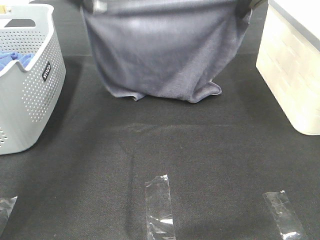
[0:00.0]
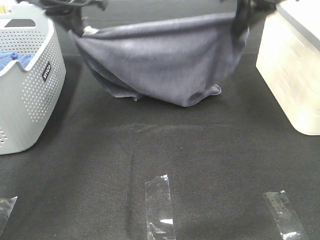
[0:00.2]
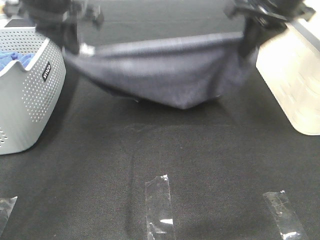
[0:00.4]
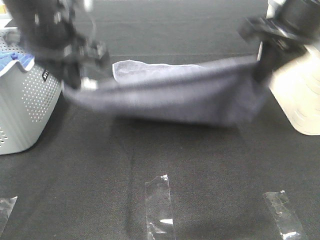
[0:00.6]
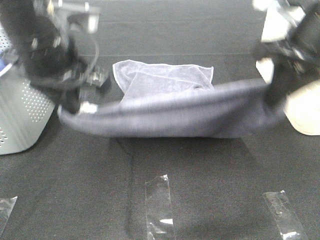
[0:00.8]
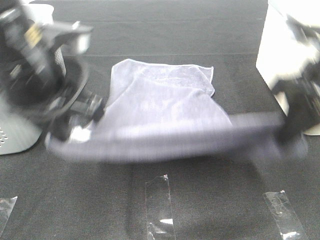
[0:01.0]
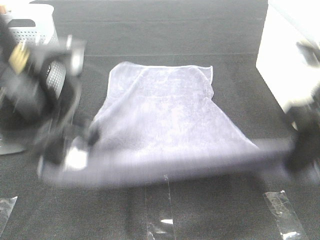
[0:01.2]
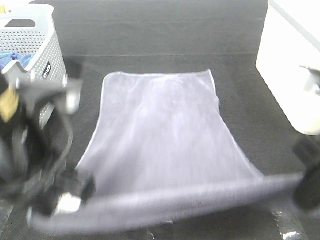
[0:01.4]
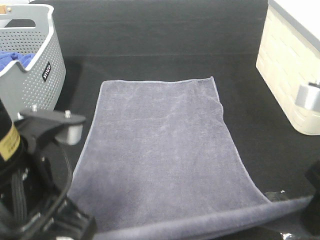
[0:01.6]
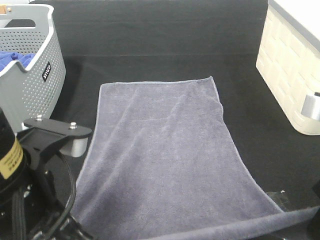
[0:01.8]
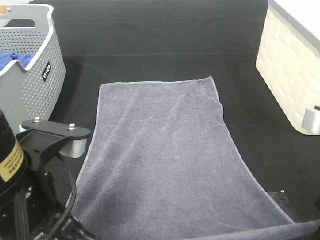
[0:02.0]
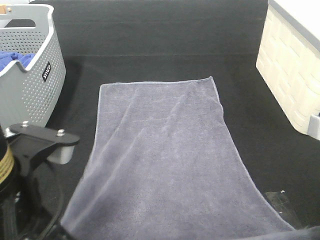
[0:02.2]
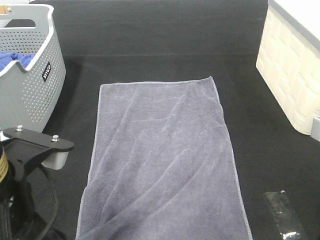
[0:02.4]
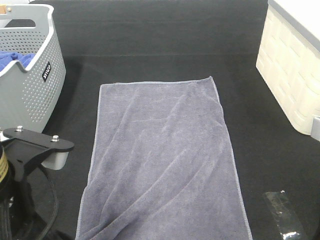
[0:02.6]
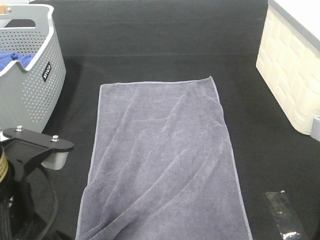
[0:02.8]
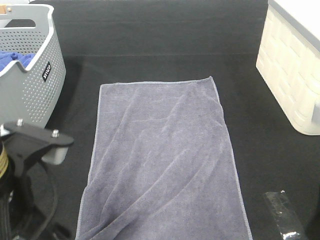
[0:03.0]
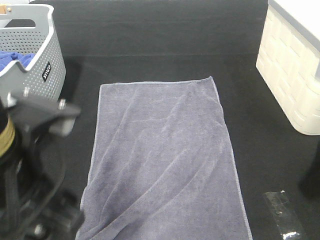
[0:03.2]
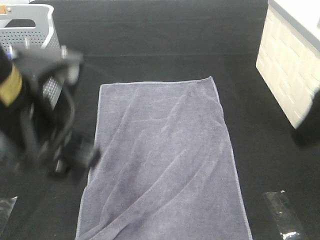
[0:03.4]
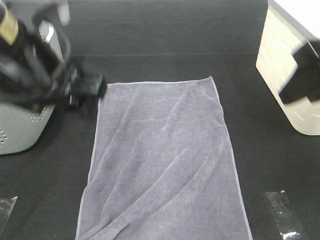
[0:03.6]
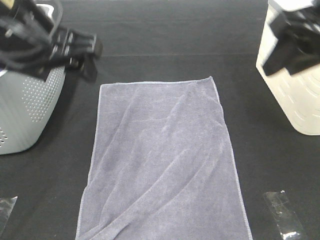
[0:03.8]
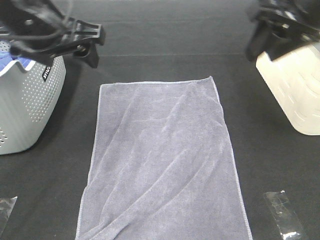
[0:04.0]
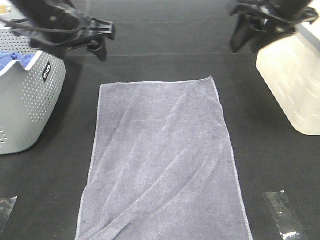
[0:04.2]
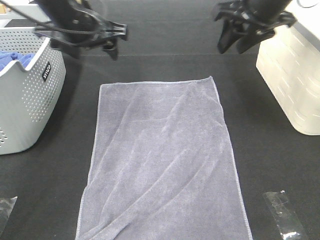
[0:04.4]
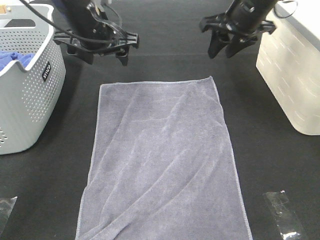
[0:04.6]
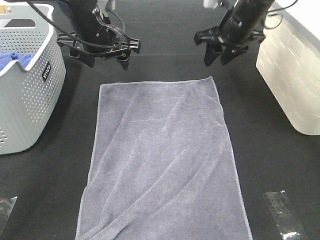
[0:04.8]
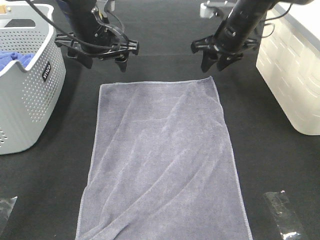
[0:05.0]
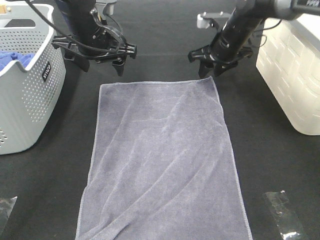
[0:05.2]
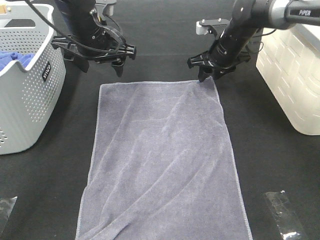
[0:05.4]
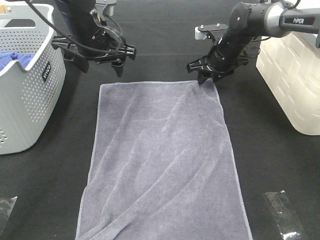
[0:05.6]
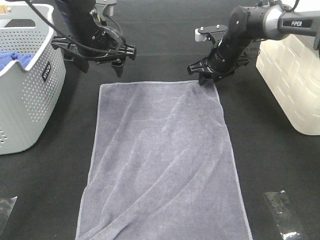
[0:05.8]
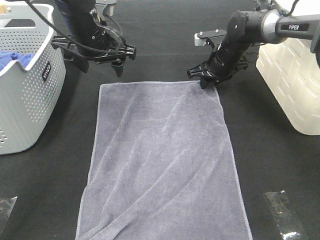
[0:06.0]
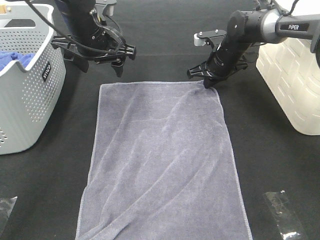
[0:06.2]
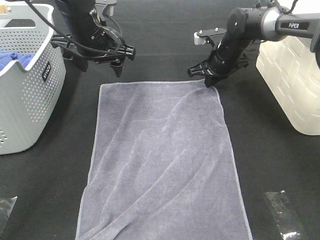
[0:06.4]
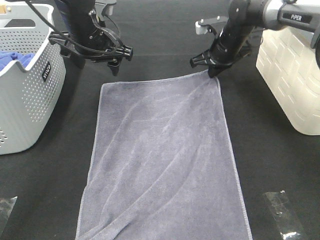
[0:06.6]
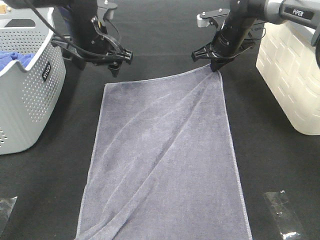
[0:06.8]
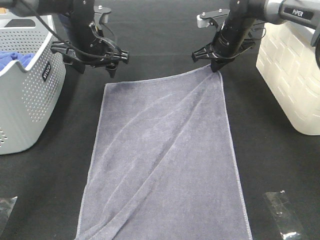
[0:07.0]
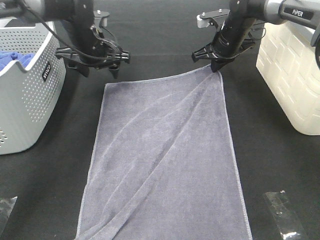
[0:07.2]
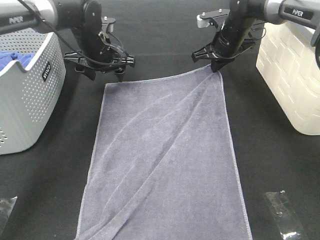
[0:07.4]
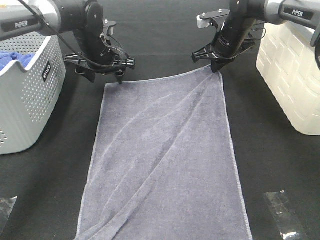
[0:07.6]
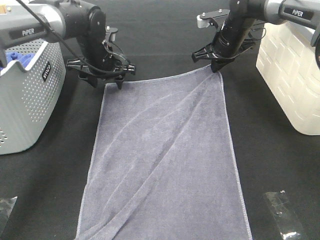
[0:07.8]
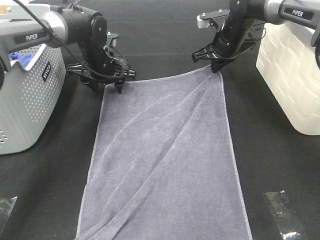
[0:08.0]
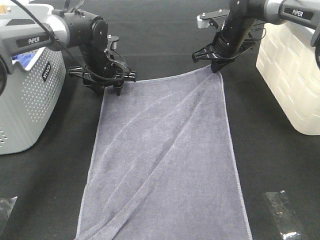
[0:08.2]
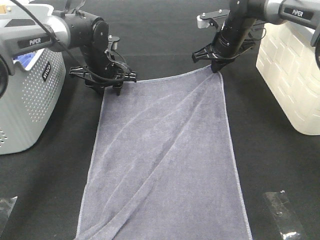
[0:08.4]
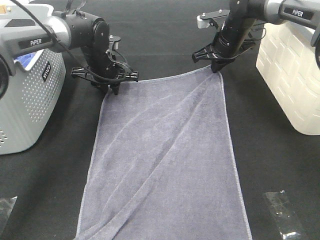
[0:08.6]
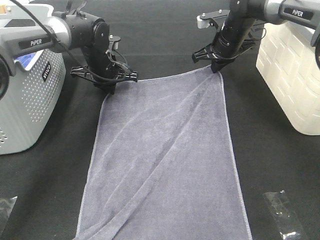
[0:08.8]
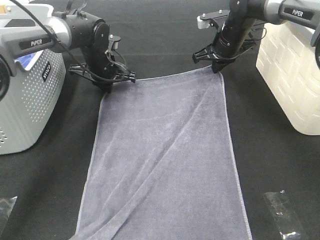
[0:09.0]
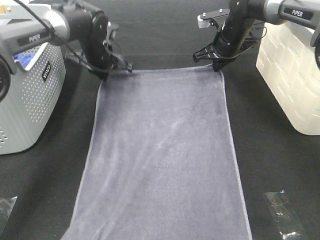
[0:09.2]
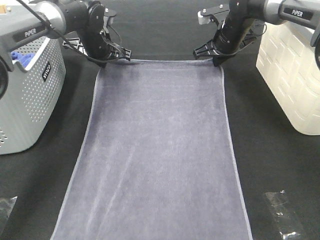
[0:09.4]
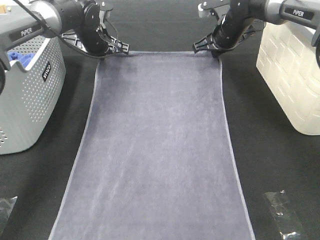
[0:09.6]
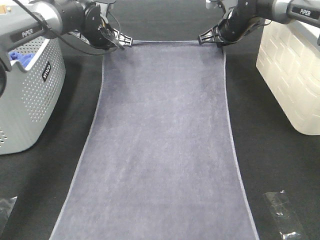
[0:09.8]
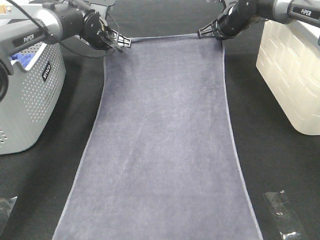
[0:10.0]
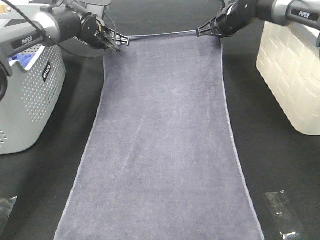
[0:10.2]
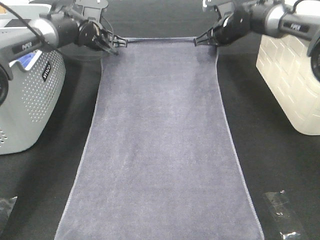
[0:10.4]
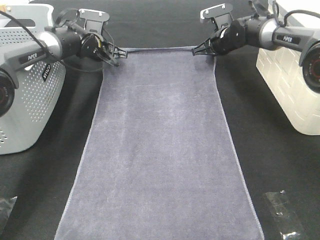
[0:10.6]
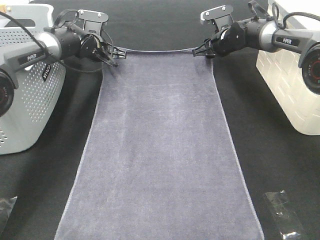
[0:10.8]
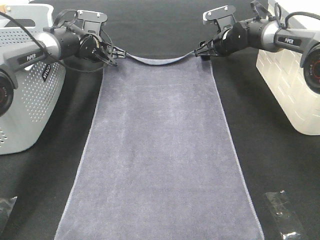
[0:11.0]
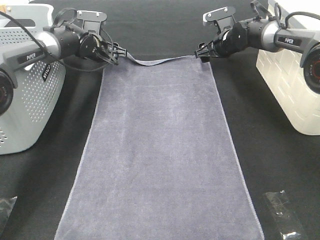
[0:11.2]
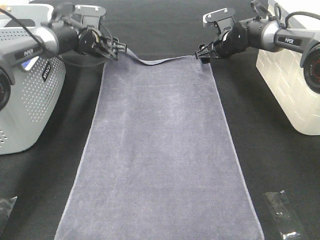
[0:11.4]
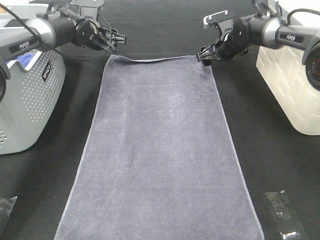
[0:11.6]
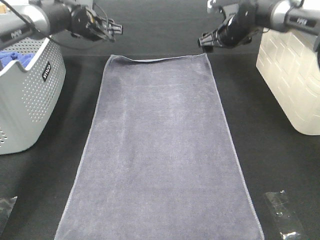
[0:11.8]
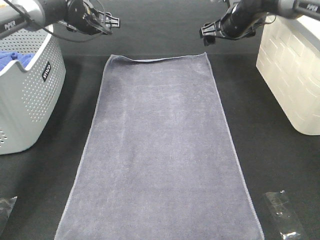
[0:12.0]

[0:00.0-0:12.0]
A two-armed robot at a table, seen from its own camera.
Task of the whole recording: Remove the towel and place it.
Step, 0:00.0 to 0:05.6: Left hand:adjust the gray towel.
Step, 0:00.0 to 0:05.6: Right hand:adjust the gray towel.
0:00.0 to 0:01.6: The grippers both shift backward by about 30 cm.
0:01.6 to 0:03.0: The left gripper opens. Meanwhile the right gripper opens up.
0:03.0 to 0:04.4: The two grippers go some 30 cm forward. The right gripper closes up.
0:04.4 to 0:06.0: The right gripper moves downward and forward, some 20 cm.
0:06.0 to 0:07.6: The right gripper closes up. The left gripper travels downward and forward by about 10 cm.
0:07.6 to 0:09.0: The left gripper closes its fingers.
0:09.0 to 0:10.4: The left gripper goes about 5 cm forward.
0:10.4 to 0:12.0: The right gripper ends up roughly 5 cm from where it was, and opens its fingers, while the left gripper goes some 5 cm upward, and opens up.

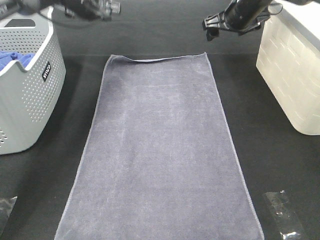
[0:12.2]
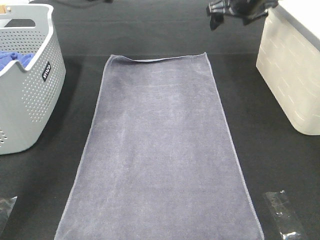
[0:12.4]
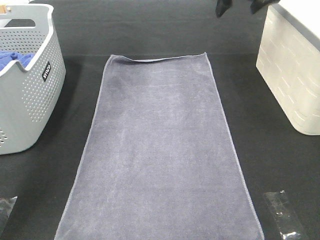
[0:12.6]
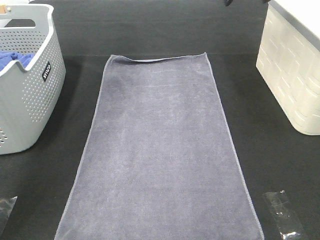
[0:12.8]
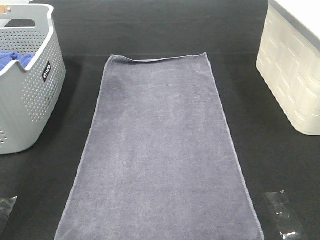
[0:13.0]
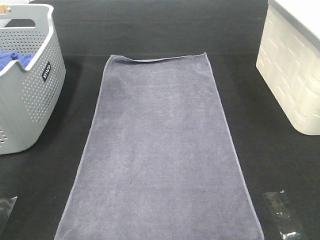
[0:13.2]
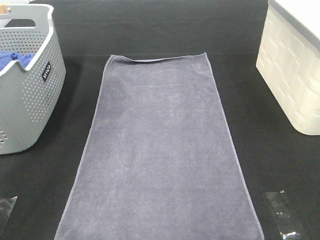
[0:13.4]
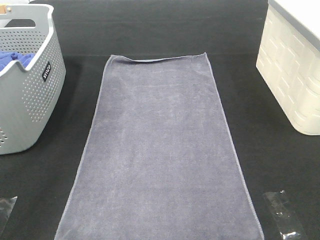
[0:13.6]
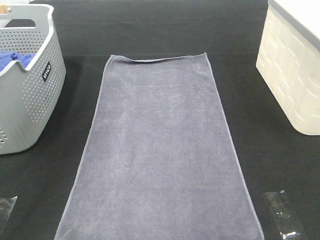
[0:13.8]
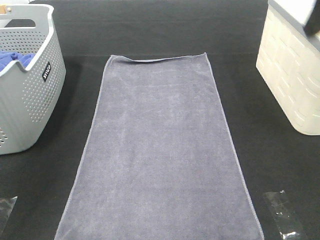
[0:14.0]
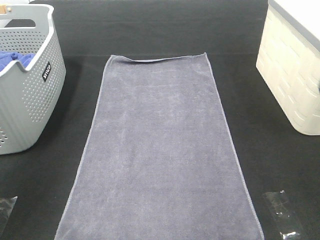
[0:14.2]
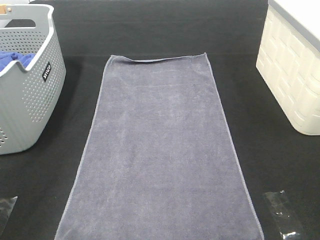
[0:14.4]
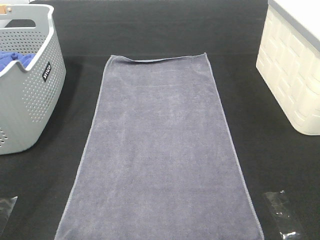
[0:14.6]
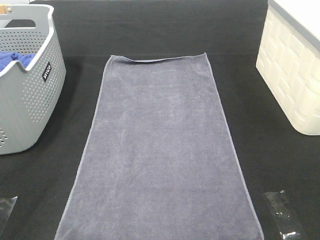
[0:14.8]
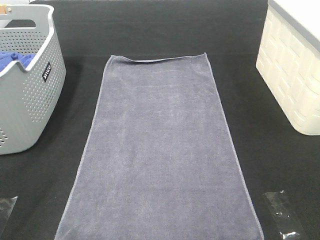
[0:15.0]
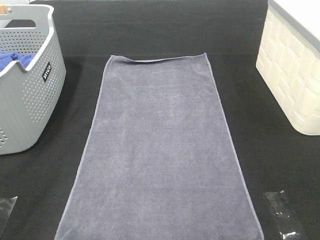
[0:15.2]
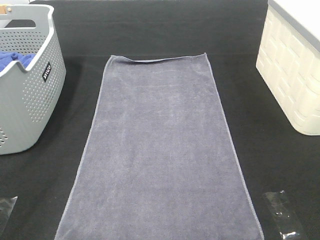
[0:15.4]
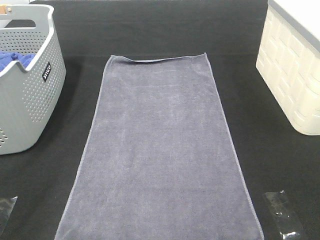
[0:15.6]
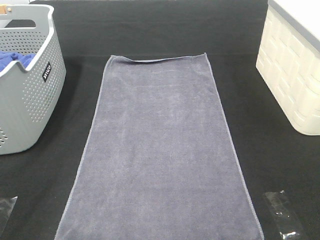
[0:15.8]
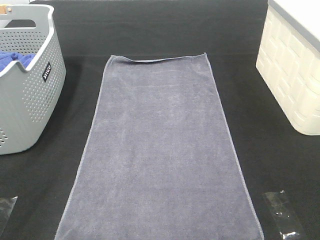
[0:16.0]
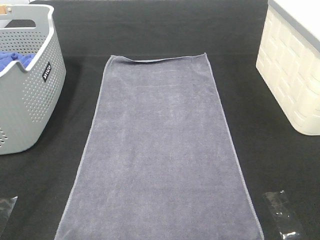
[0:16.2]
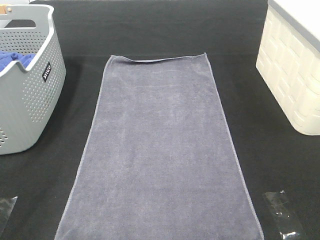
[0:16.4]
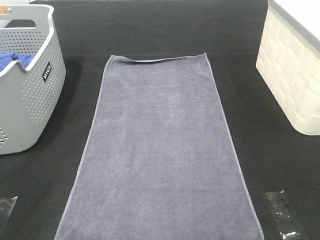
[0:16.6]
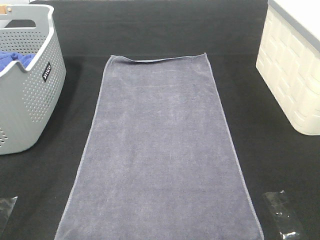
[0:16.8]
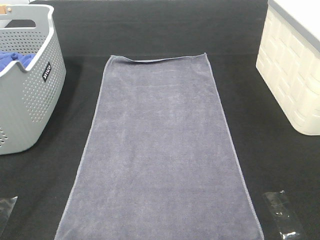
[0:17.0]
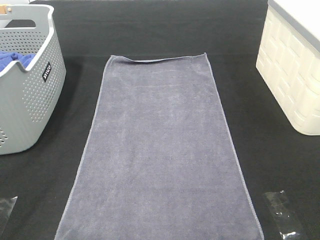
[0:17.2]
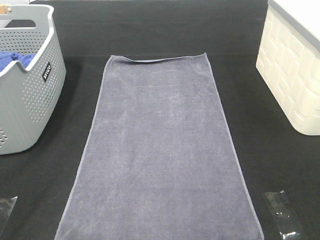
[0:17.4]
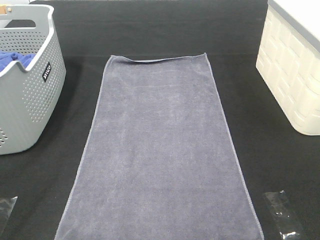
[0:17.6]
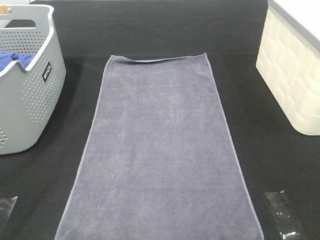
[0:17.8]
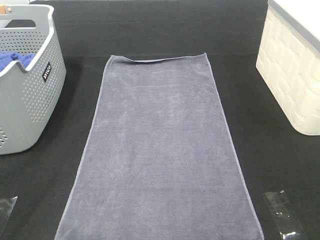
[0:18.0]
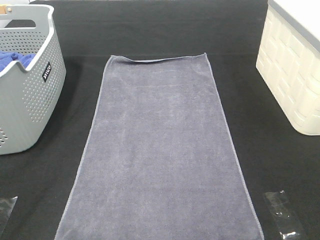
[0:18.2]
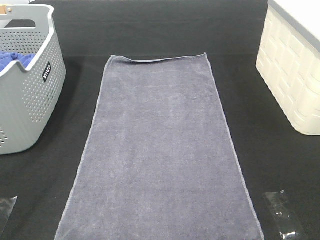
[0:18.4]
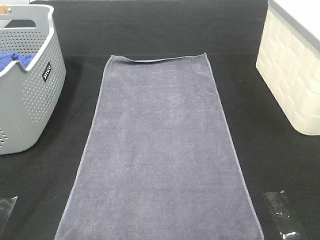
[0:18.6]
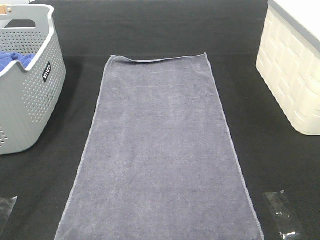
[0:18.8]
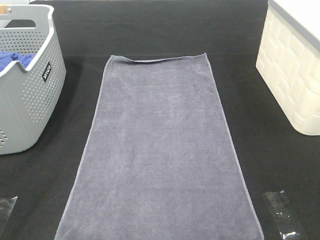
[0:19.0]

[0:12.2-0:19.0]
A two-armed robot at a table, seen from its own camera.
Task of the whole recording: Remove the towel and place it.
0:12.2 to 0:13.6: The right gripper is displaced upward and backward by some 30 cm. The left gripper moves backward and upward, roughly 30 cm.
0:13.6 to 0:15.0: Both grippers travel together backward and downward, about 35 cm.
0:17.6 to 0:19.0: Both grippers stay put.

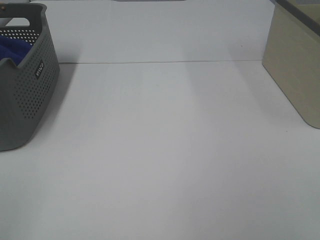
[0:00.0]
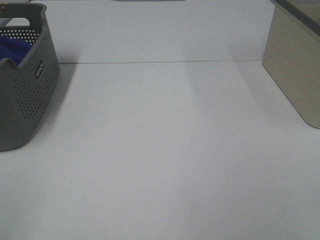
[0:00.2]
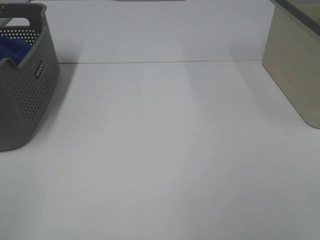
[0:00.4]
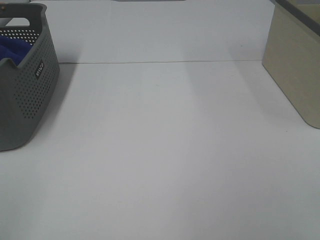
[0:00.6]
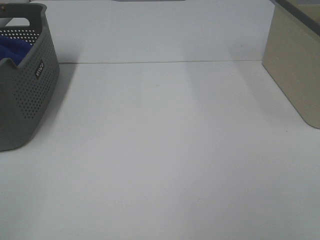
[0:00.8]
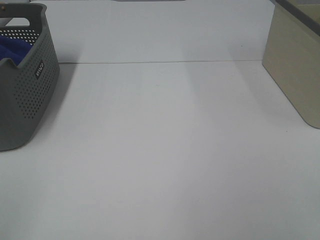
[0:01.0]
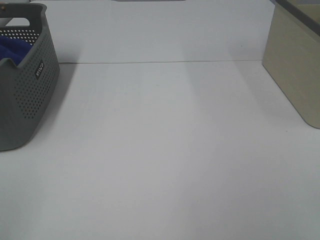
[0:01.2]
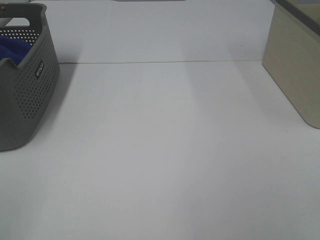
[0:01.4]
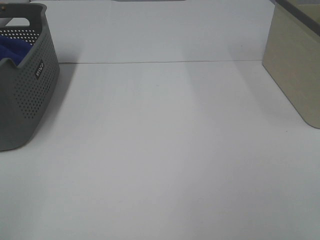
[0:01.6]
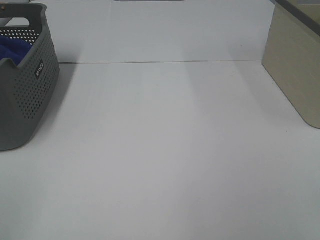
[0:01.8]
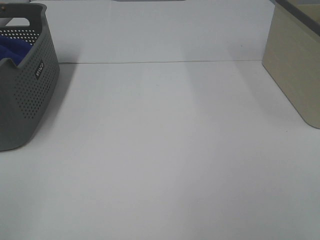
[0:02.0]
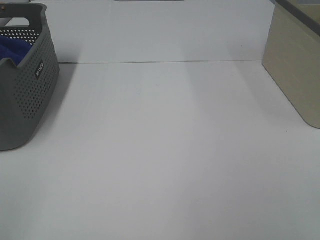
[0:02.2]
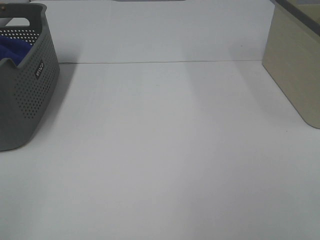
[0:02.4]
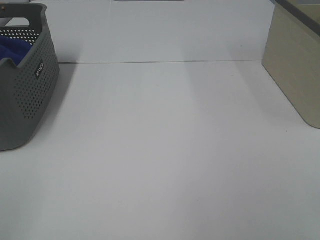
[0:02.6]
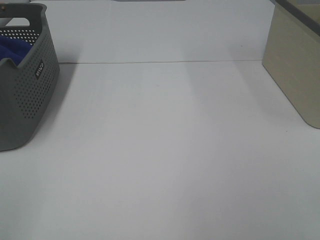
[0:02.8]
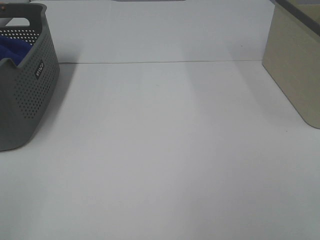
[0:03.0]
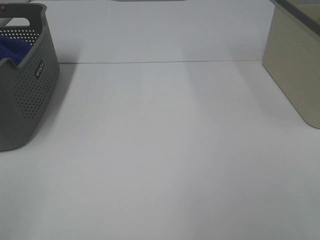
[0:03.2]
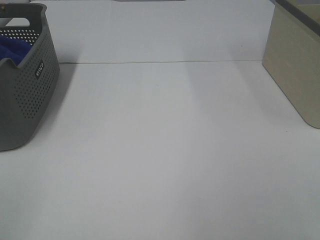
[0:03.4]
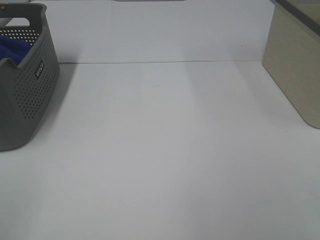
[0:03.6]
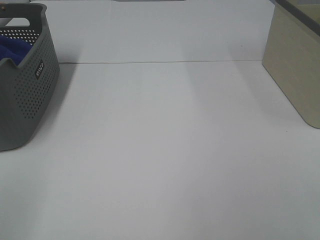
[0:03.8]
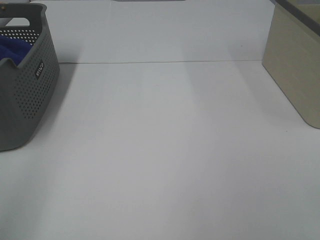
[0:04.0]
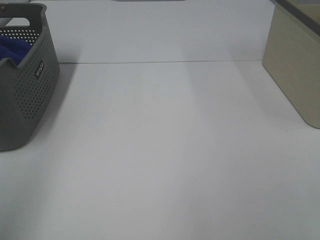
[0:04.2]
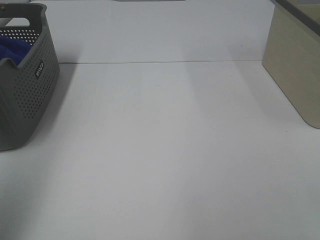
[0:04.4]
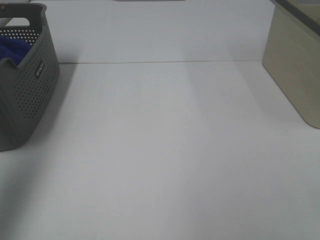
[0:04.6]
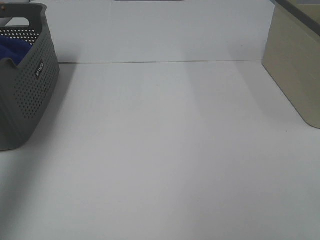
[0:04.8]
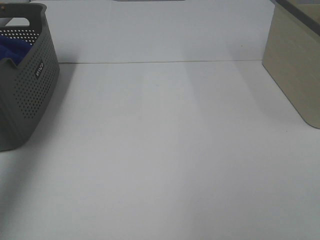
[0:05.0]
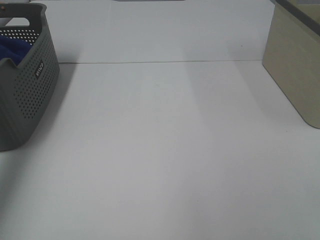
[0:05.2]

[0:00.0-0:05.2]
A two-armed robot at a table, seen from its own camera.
Task of the whole recording: Remove the towel and place it.
0:00.0 to 0:03.4: The two grippers keep their place.
0:03.4 to 0:05.2: The left gripper goes approximately 40 cm forward.
